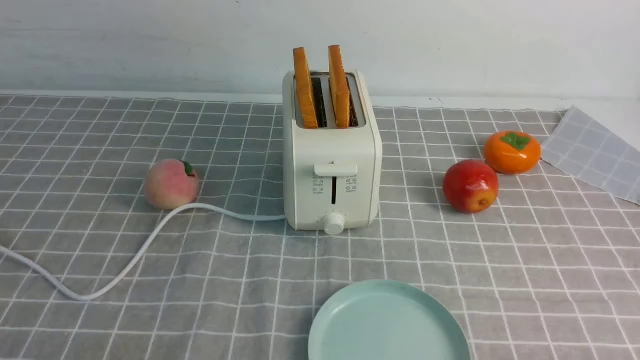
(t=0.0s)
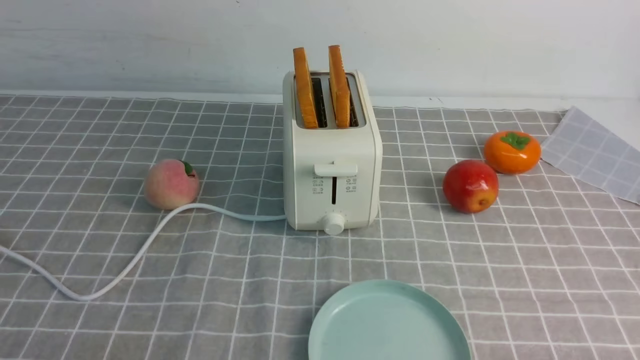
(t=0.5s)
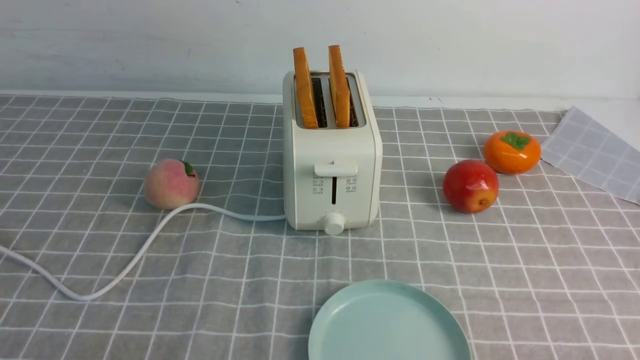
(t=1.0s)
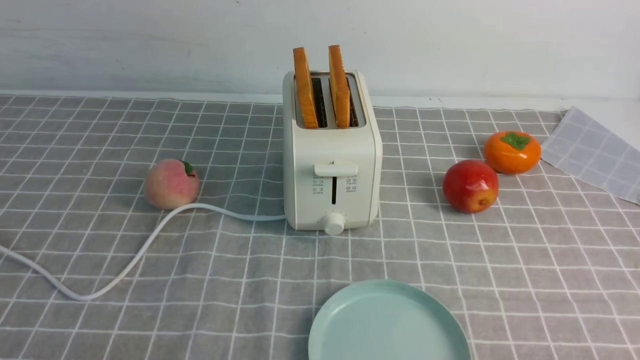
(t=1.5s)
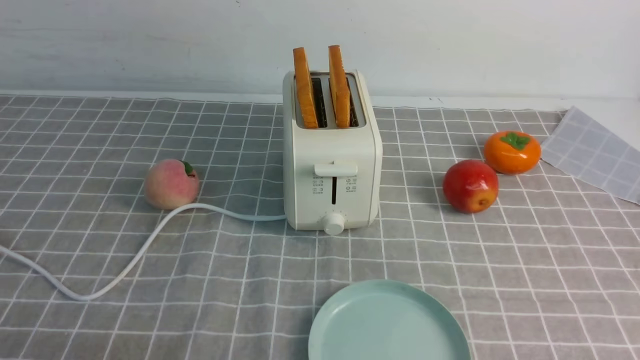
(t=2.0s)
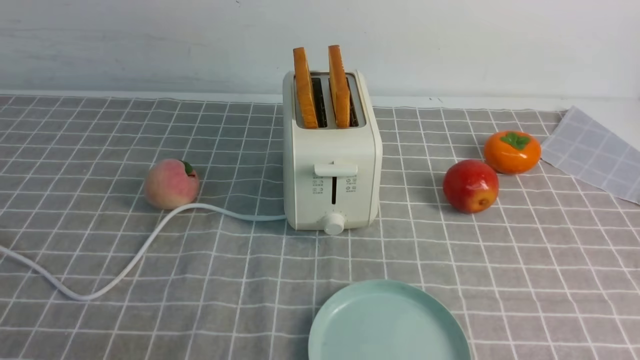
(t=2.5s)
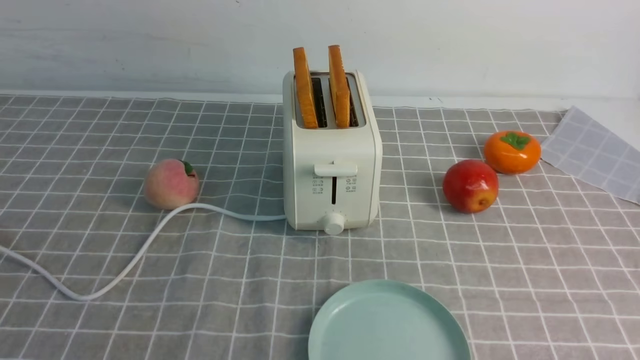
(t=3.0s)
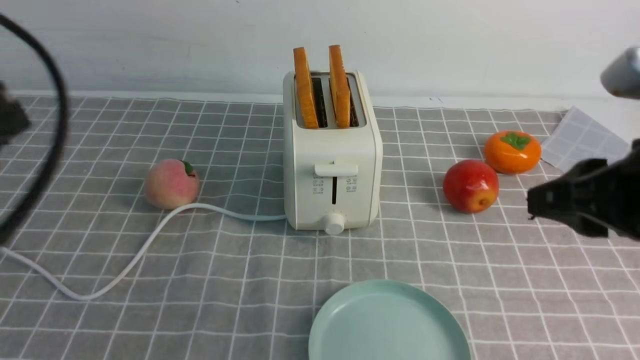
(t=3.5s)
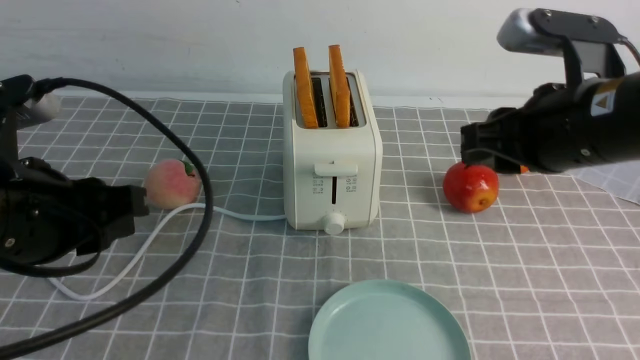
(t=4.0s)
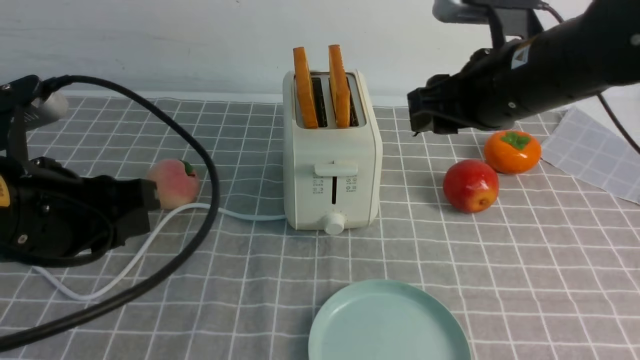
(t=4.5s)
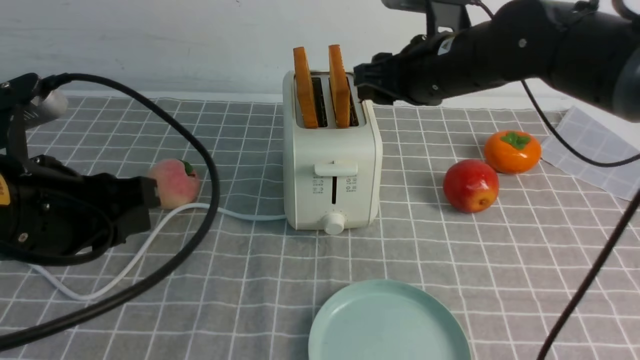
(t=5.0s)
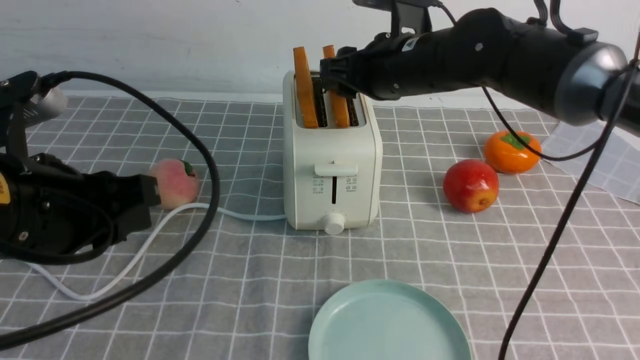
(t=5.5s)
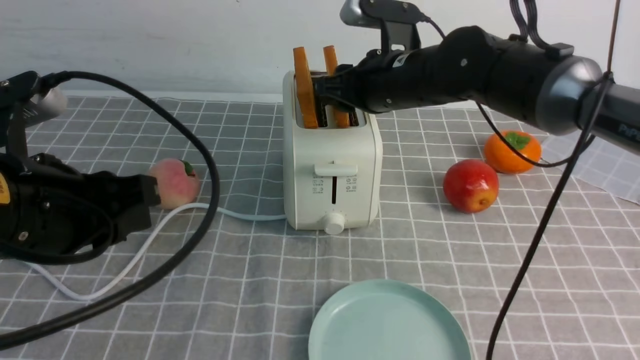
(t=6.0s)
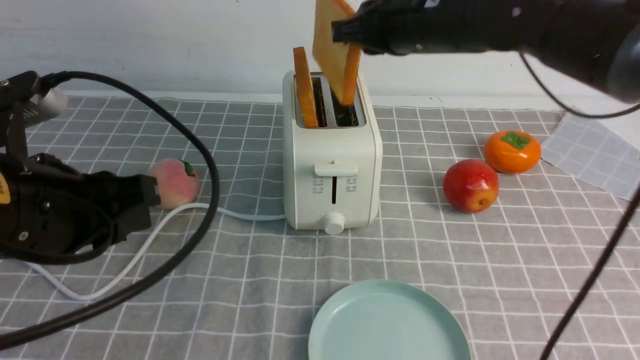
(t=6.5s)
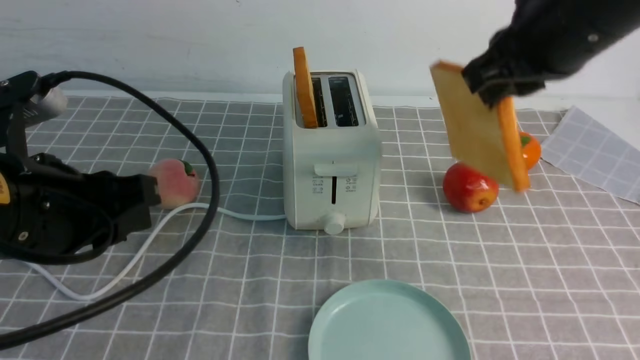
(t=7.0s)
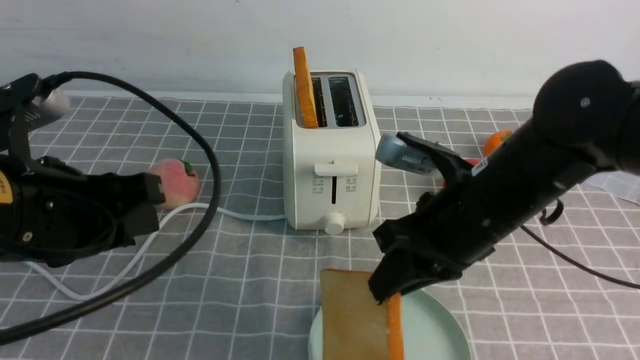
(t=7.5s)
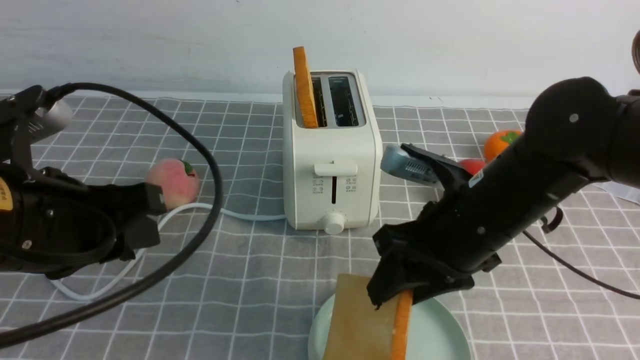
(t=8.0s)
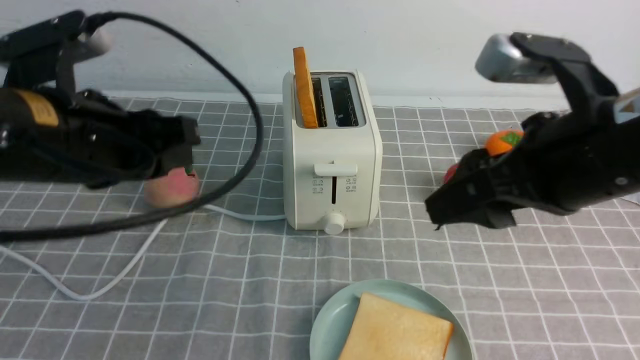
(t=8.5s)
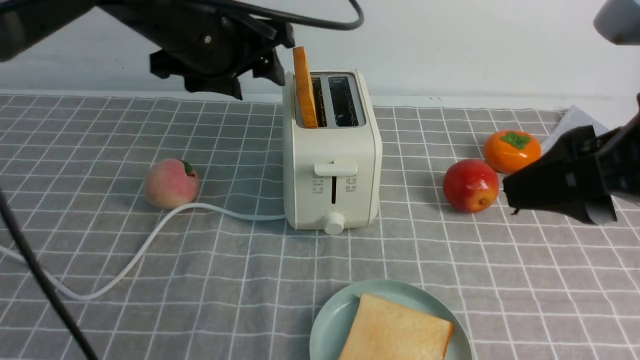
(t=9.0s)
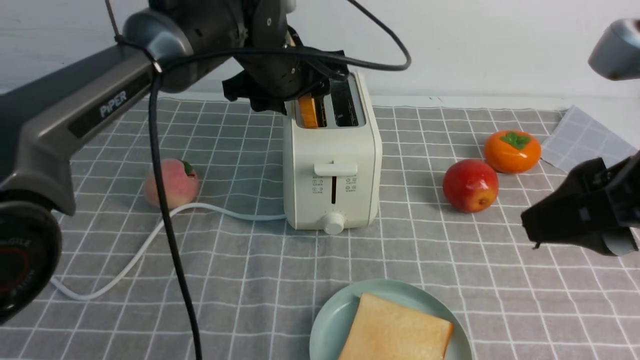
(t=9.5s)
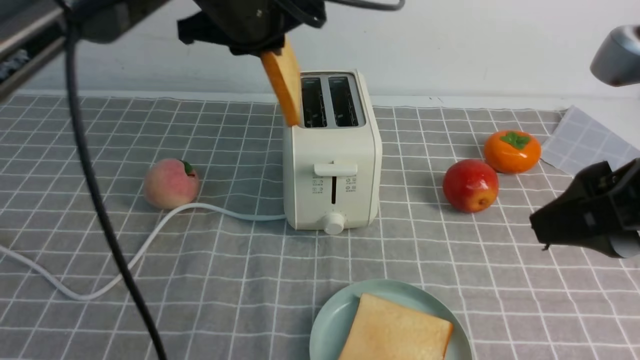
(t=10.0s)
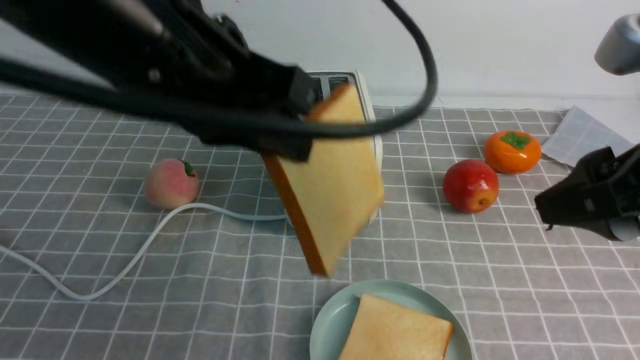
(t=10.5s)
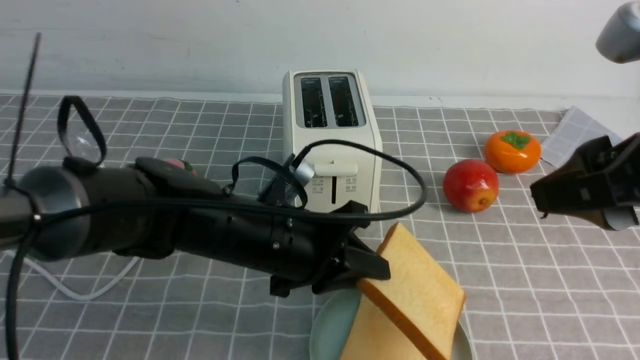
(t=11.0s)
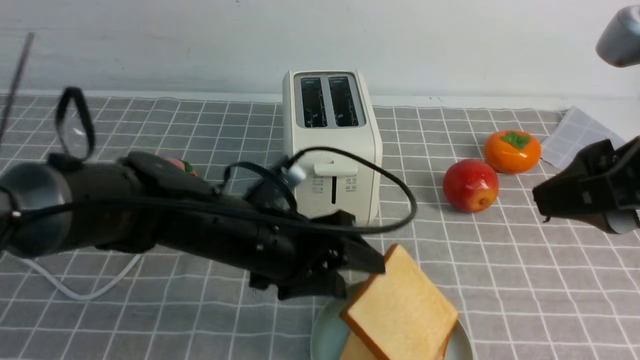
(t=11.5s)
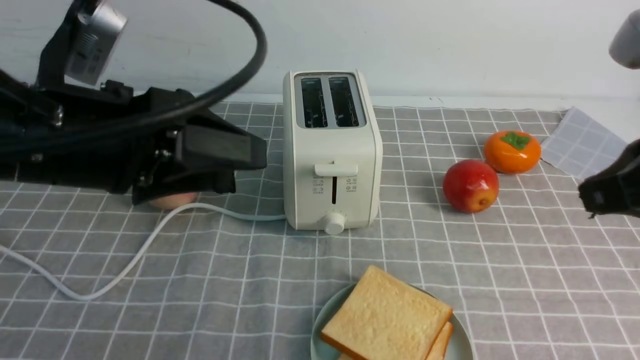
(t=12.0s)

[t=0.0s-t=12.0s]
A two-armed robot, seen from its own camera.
Task of the whole recording: take toasted bread from bread machine on grey coffee table place on plate.
Step, t=0.0s to t=6.5s: use the right arm to take out a slice of bread.
Step, t=7.0s to t=8.0s: use the right arm to put a slice of bread into the plate.
Step, t=8.5s to t=10.0s: use the left arm to take out a slice of bread.
Step, t=10.5s to t=11.5s: use the left arm to put a slice of bread into the empty plate.
t=2.0s to t=4.0s: The left gripper travels forward, upward and to the right by about 20 cm. The right gripper moves forward and to the left, roughly 25 cm.
t=4.0s to t=6.0s: The right gripper moves forward and to the left, approximately 20 cm.
t=6.0s to t=8.0s: The right gripper travels backward by about 15 cm.
t=8.0s to t=10.0s: The left gripper goes about 25 cm forward, to the right and upward, and opens, then closes again. The right gripper goes about 20 cm upward, backward and to the right.
t=10.0s to t=12.0s: The right gripper closes its fingers. The left gripper shifts roughly 20 cm backward and to the left, goes downward and returns, approximately 20 cm each way, and opens up.

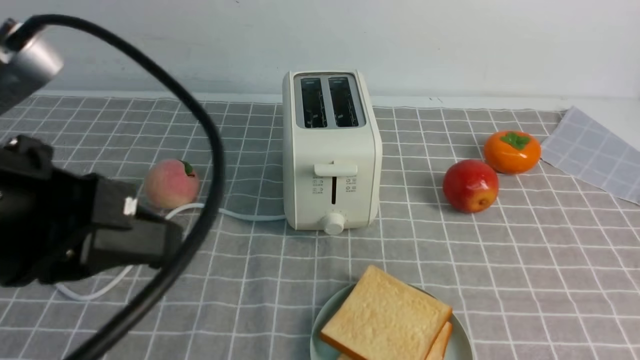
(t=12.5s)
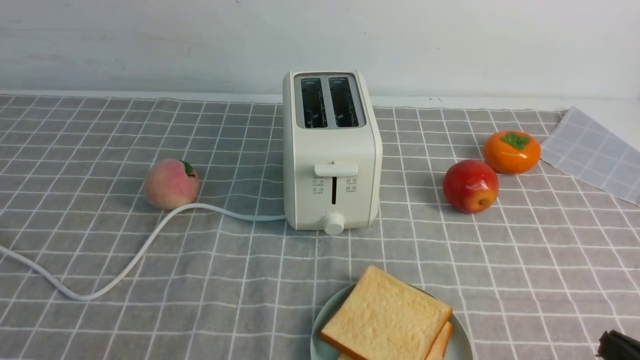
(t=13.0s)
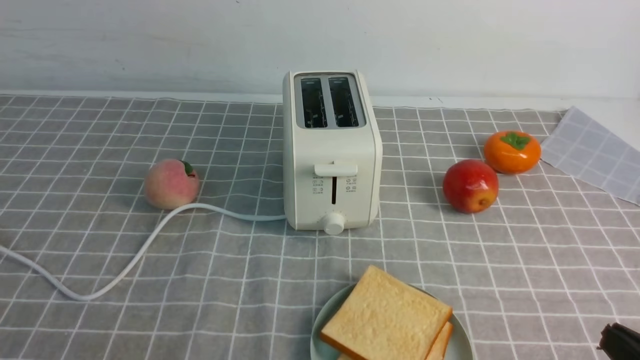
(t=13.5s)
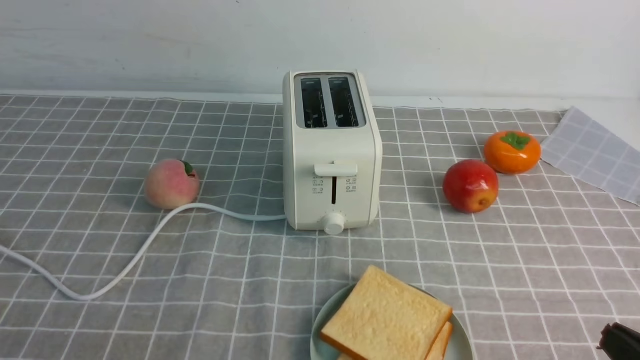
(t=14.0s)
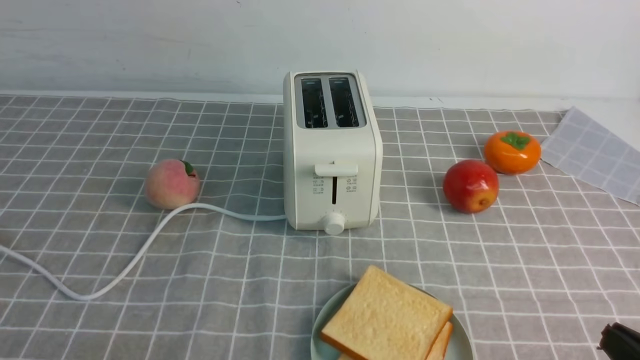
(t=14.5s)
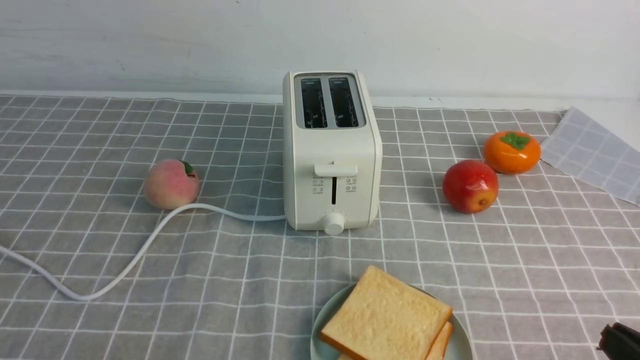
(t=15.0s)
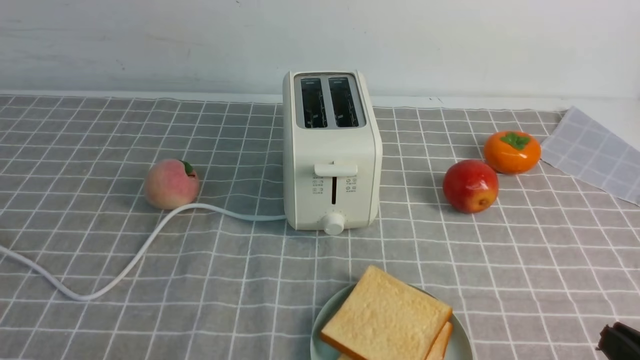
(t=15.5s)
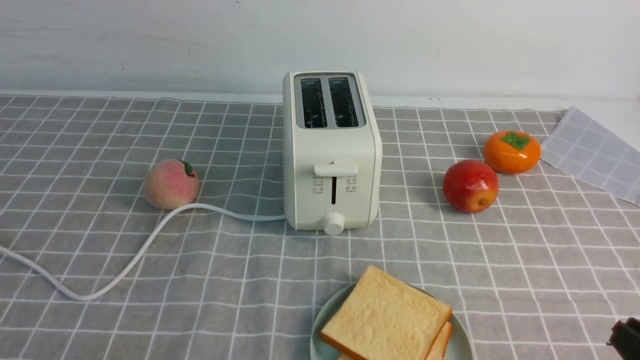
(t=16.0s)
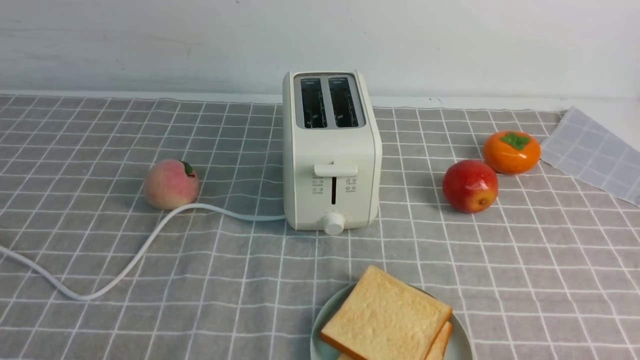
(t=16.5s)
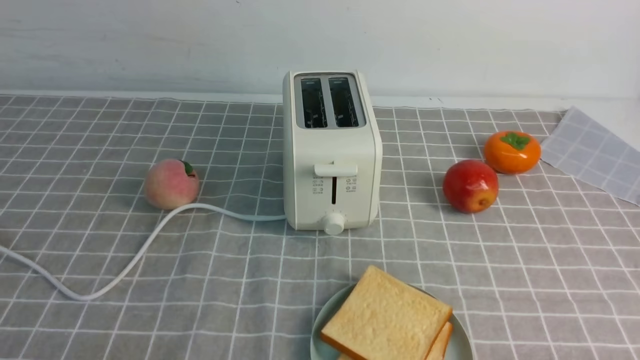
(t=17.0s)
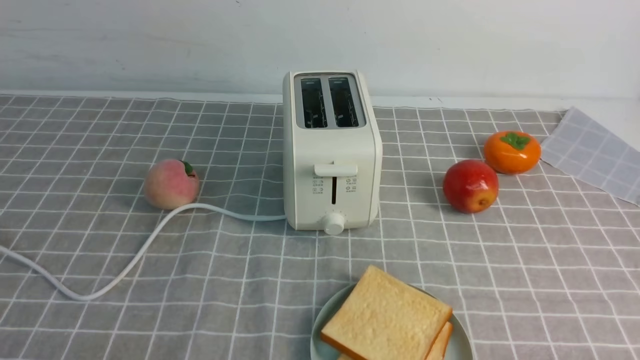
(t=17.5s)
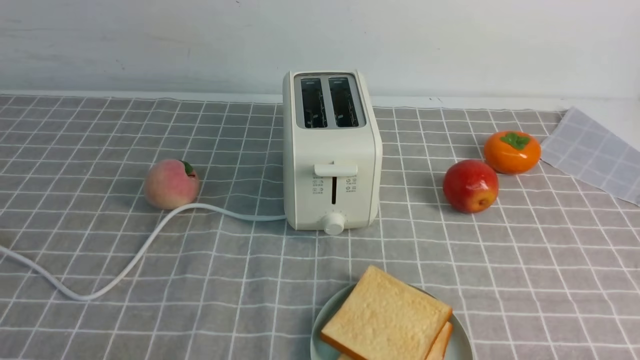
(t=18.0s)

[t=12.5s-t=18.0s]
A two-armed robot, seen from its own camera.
Task of the whole recording: take toasted bread from bread machine on grey coffee table place on plate.
t=12.5s to t=14.5s: The left gripper goes some 20 cm downward and backward; the right gripper is displaced downward by about 10 cm.

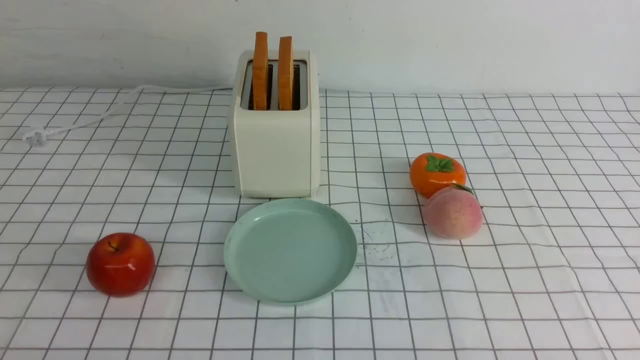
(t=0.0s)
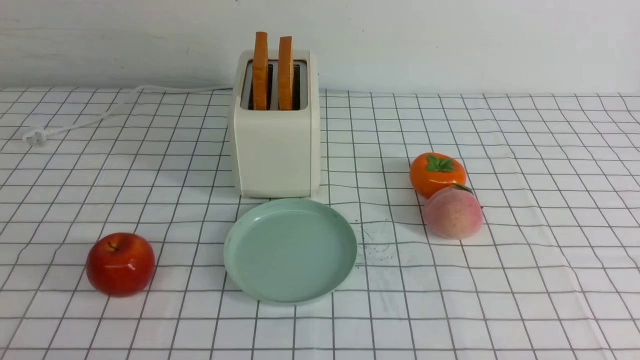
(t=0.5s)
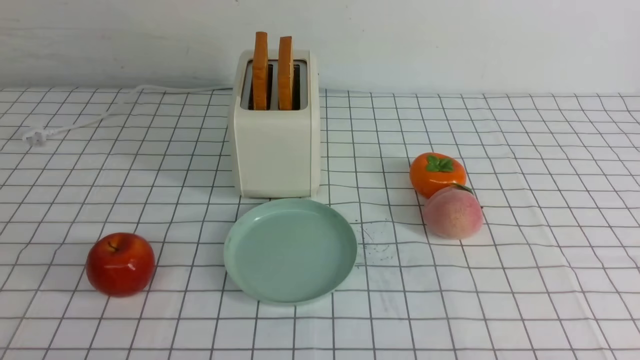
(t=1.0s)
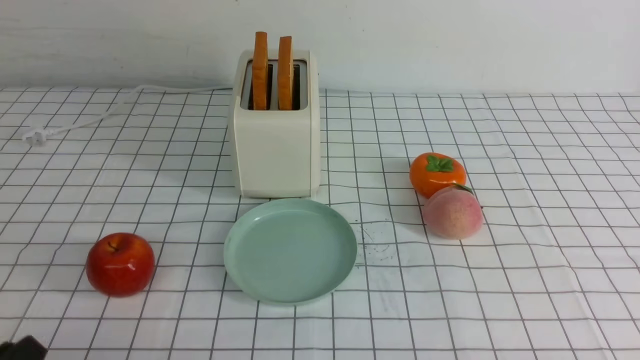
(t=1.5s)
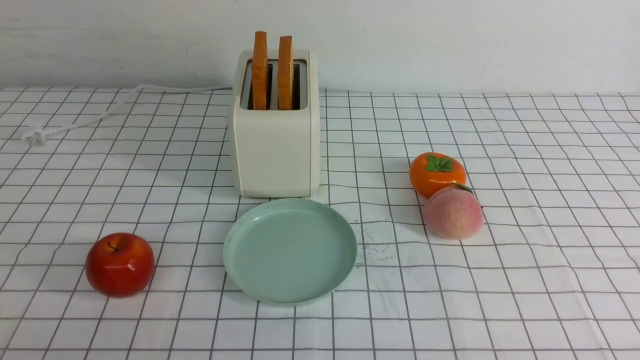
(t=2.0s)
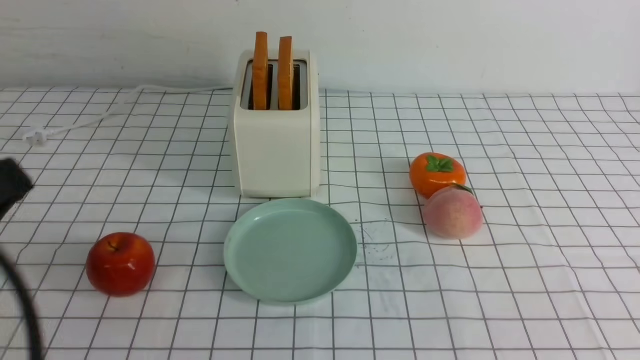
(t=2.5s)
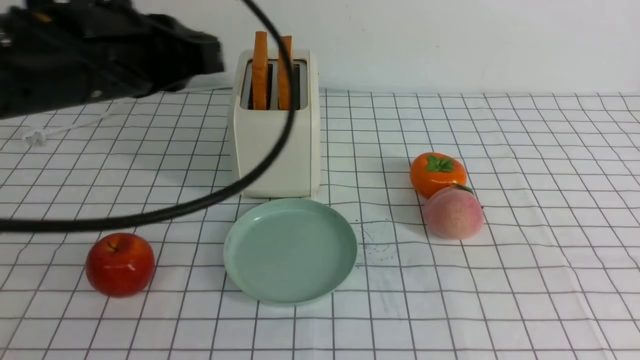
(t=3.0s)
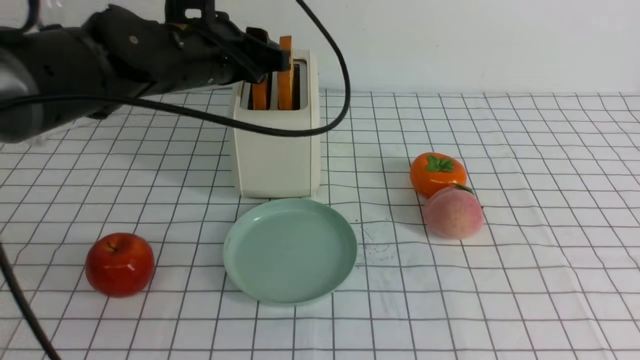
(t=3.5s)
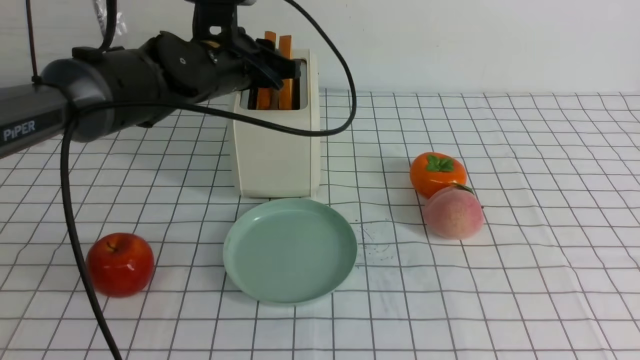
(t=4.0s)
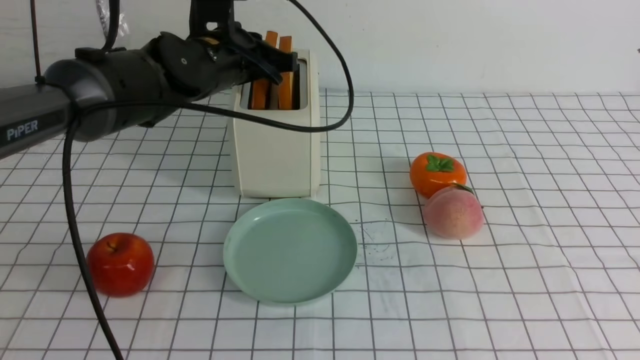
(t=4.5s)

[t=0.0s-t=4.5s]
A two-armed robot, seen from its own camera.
Task of the whole recording: take toasted bread from bread machine on white checkered table place on plate.
t=2.0s to t=4.5s: The left gripper is displaced forward by roughly 40 cm; the right gripper heads upward, covering roughly 30 cm, and closes its fingers.
